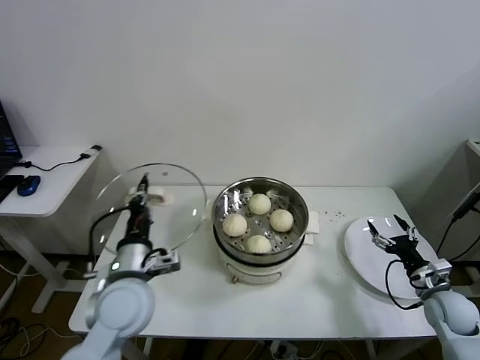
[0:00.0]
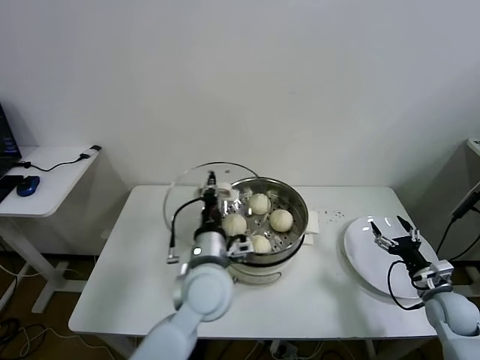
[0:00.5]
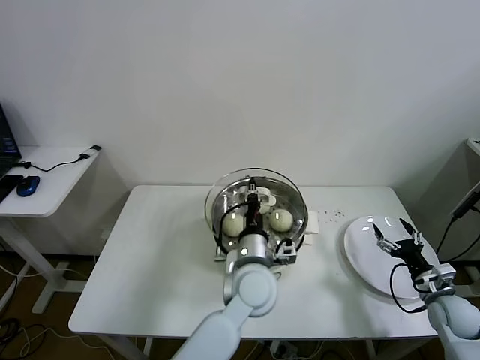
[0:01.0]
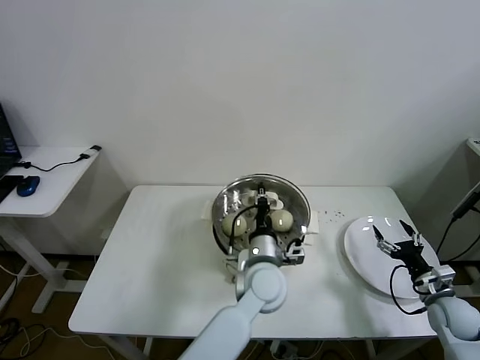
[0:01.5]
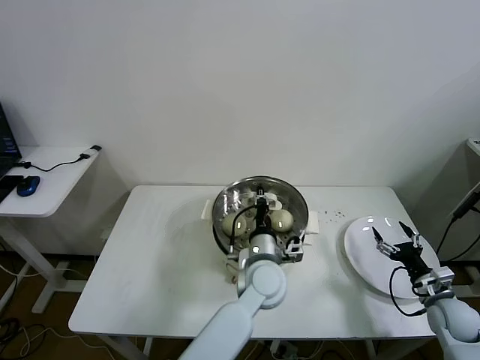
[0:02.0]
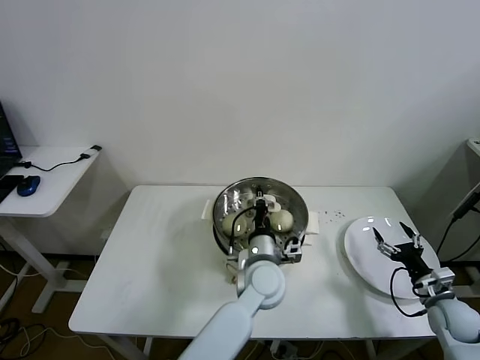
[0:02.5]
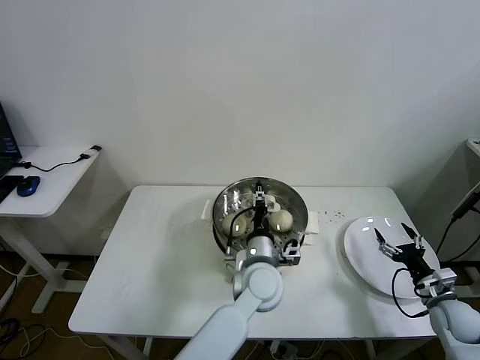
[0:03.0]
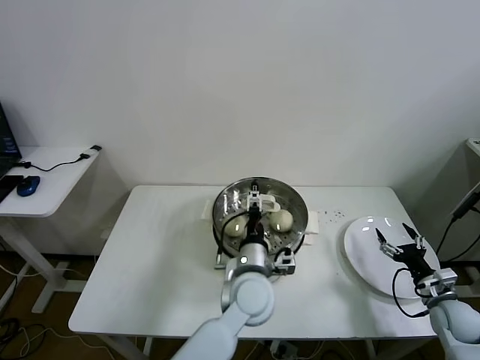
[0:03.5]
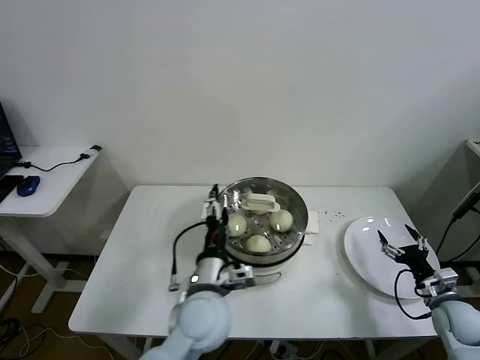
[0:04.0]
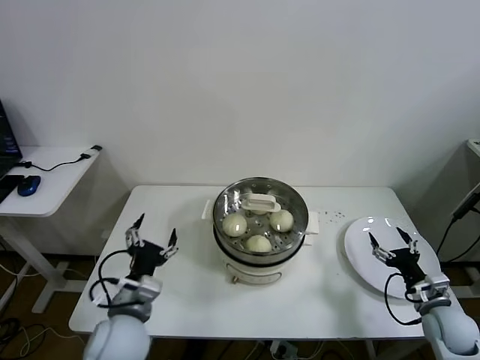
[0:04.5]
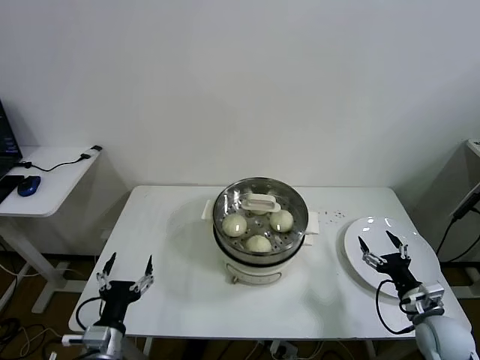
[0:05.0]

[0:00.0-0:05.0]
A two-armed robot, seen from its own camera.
Task of the whole recording: take steamed baozi put them in steamer.
Step, 0:00.0 to 0:03.0: Place the pot lid on the steamer with left gripper.
0:00.0 to 0:02.5: The left gripper moves to the right, approximately 25 cm.
0:02.5 to 0:05.0: The right gripper is displaced to the left by approximately 5 cm. The left gripper goes roughly 35 cm to the left and backward, and opens up.

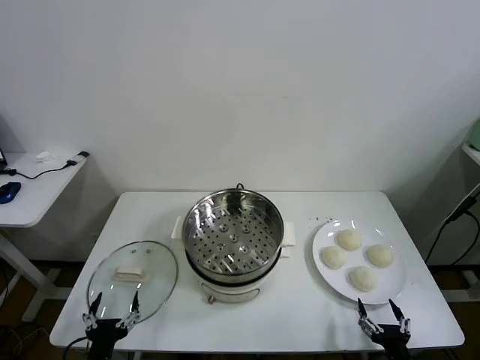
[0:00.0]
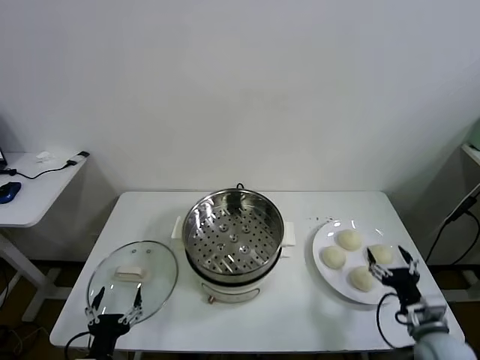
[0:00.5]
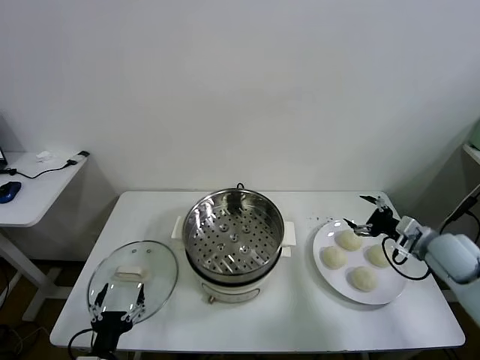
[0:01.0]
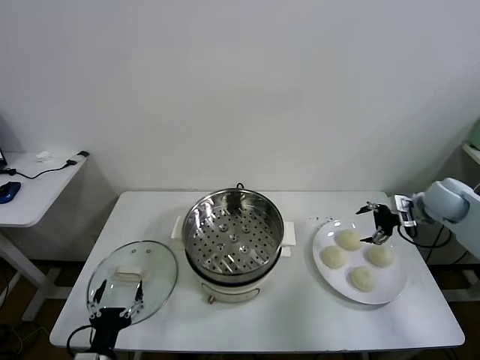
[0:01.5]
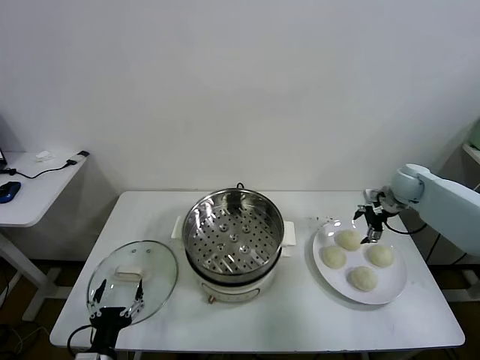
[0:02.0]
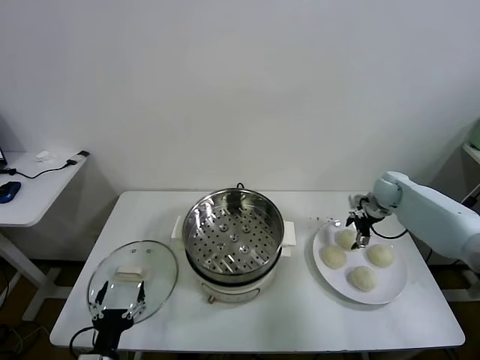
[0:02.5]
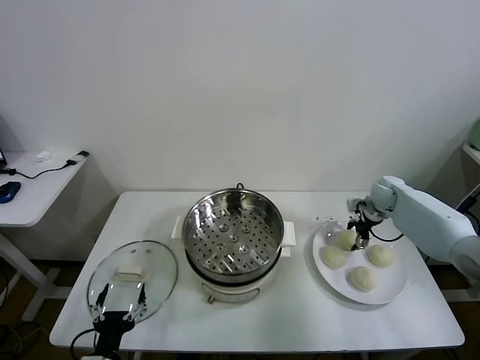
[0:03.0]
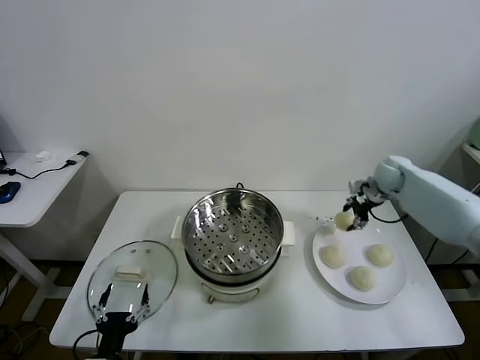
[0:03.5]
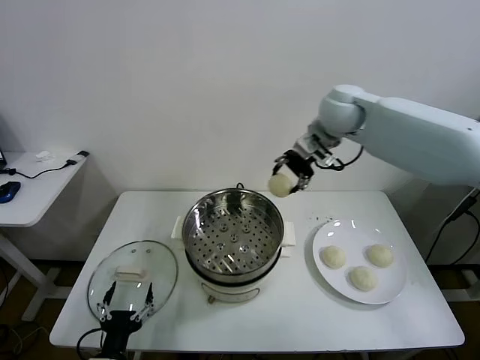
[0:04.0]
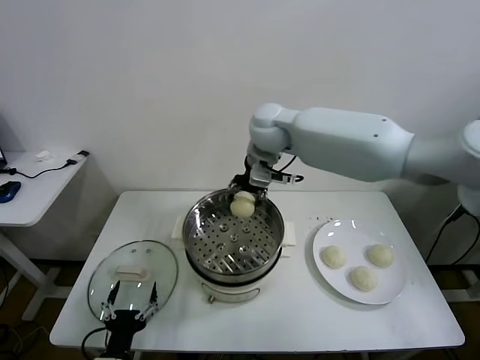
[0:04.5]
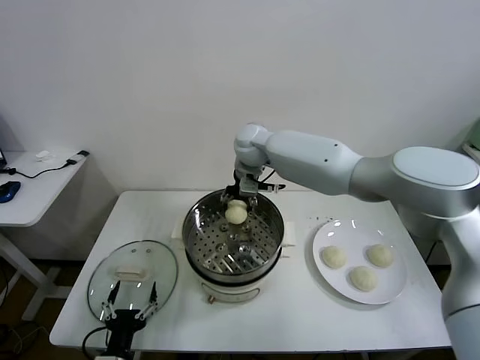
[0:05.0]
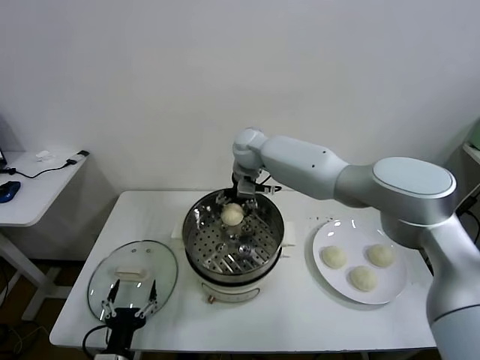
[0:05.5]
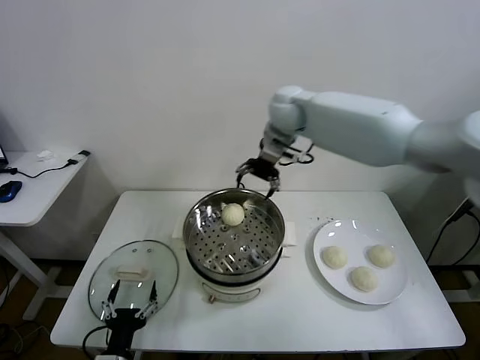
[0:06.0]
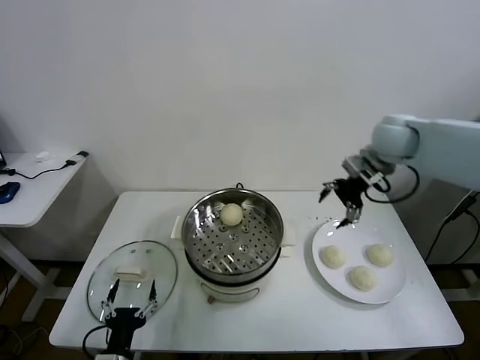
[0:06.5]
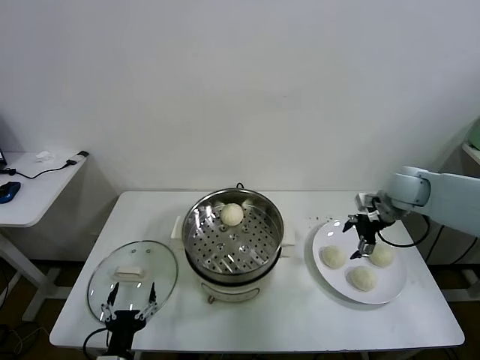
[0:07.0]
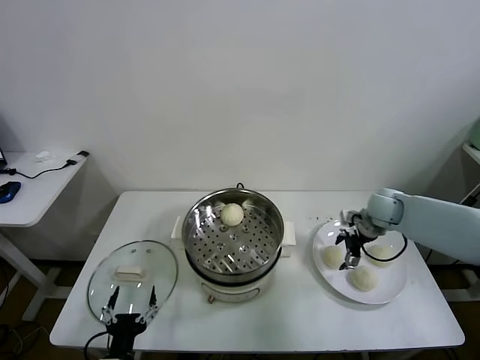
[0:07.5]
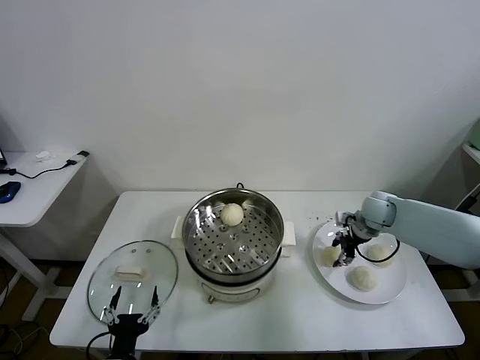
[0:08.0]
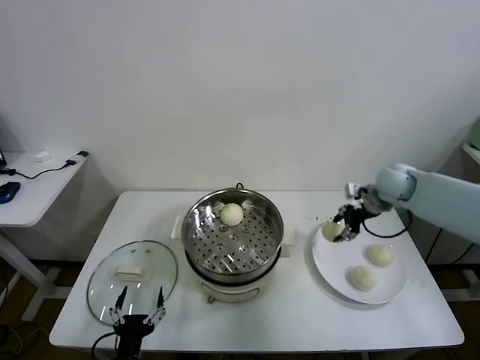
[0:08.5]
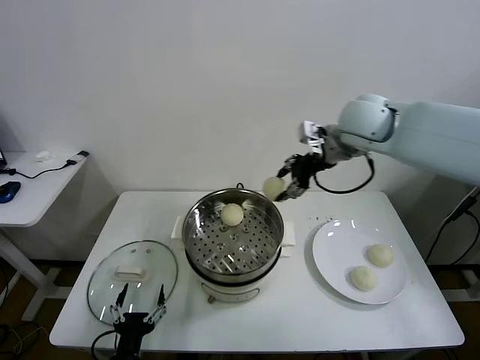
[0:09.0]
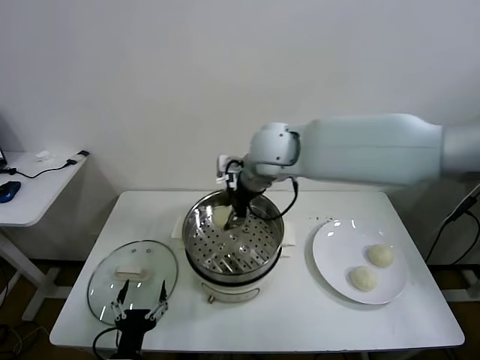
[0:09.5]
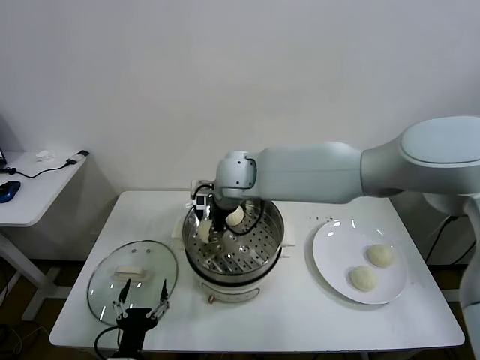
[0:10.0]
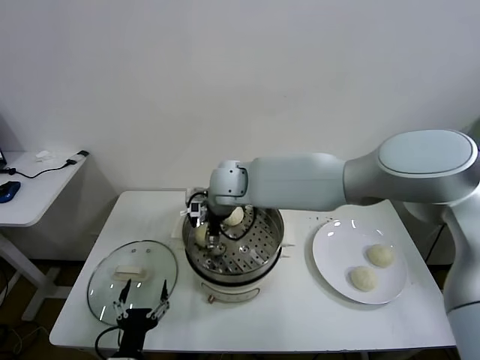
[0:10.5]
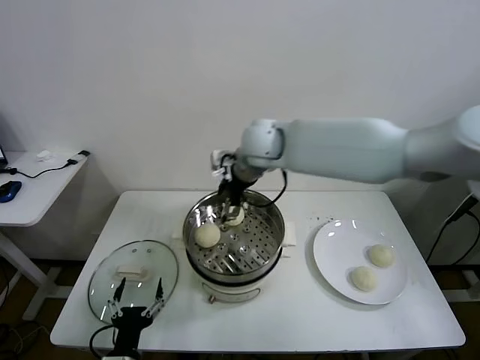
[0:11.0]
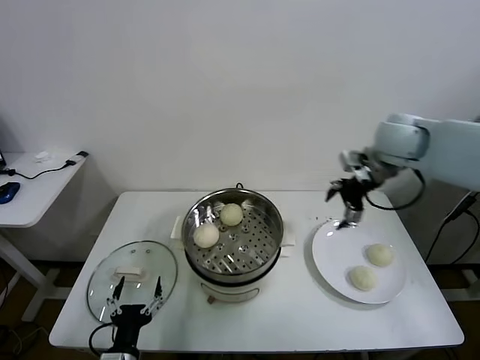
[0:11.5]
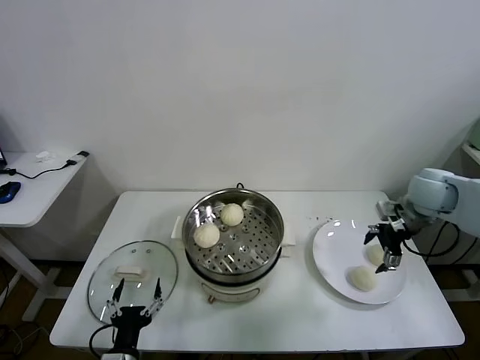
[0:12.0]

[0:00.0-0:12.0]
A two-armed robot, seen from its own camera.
Task of the whole recording: take steamed baozi put them in steamer.
Step, 0:00.0 to 0:03.0: Grasp the baozi in the plate with right gripper.
Step, 0:03.5 to 0:05.5: Place the baozi on the steamer with right gripper.
Step, 0:06.0 to 0:08.0: Grasp the baozi in the plate with right gripper.
Step, 0:08.5 to 0:10.5: Place the baozi on the steamer with right gripper.
0:02.0 to 0:04.0: The right gripper moves to the left and upward, roughly 35 cm, and closes.
0:04.0 to 0:06.0: The right gripper reaches approximately 15 cm to the left, then returns, and opens.
0:06.0 to 0:08.0: The right gripper goes approximately 35 cm downward and to the right, and closes up.
0:08.0 to 0:10.0: The right gripper travels to the left by about 40 cm.
0:10.0 to 0:12.0: The right gripper travels to the right by some 40 cm, and opens its fingers.

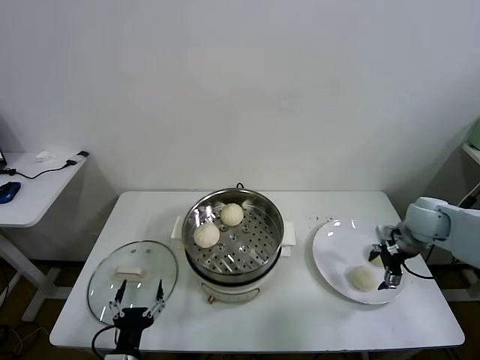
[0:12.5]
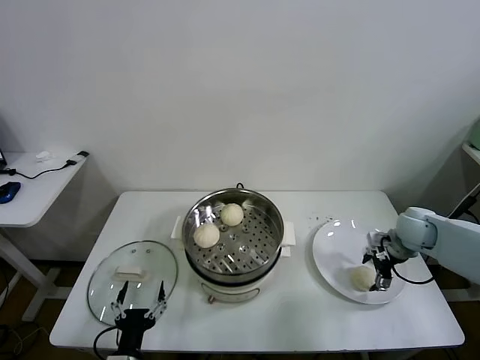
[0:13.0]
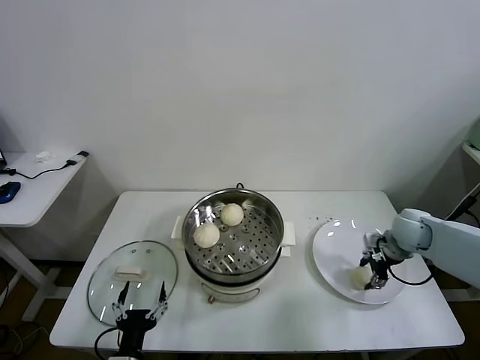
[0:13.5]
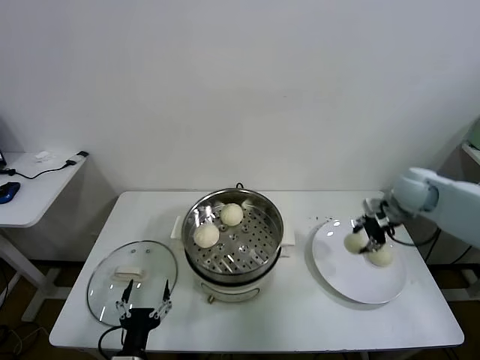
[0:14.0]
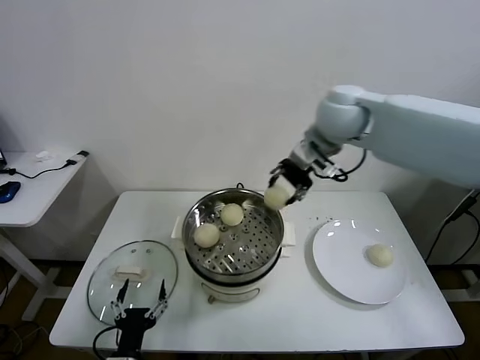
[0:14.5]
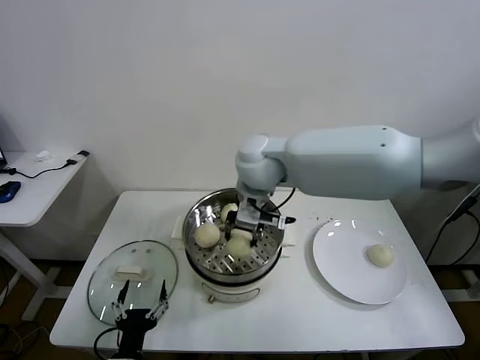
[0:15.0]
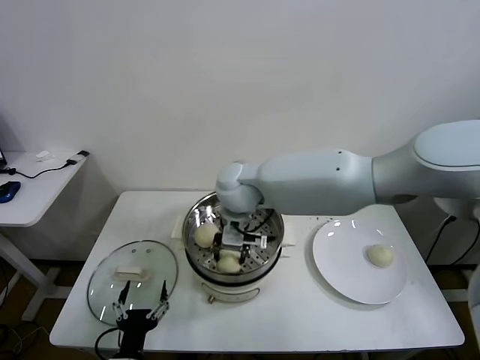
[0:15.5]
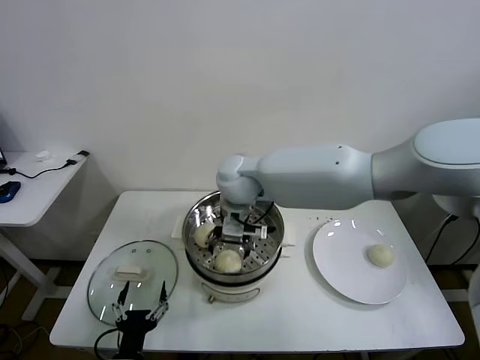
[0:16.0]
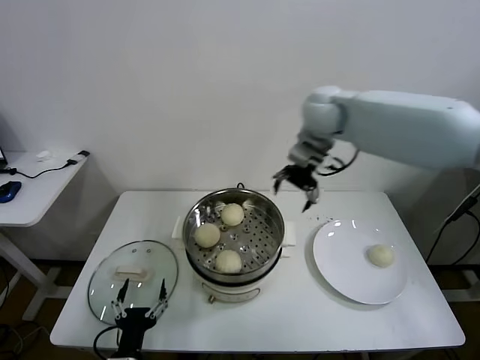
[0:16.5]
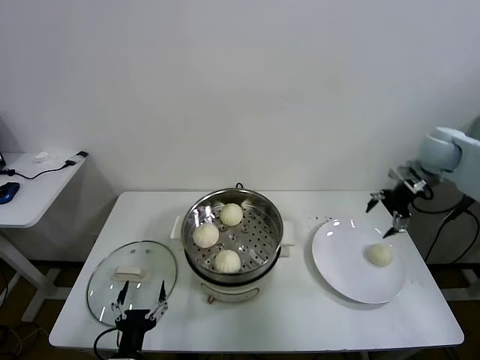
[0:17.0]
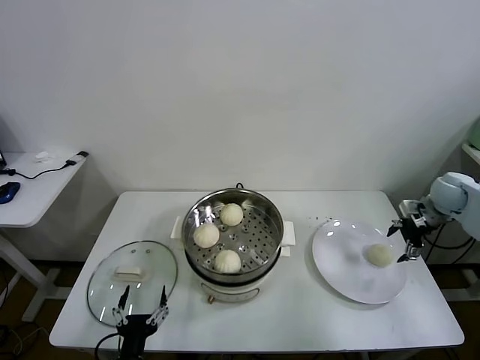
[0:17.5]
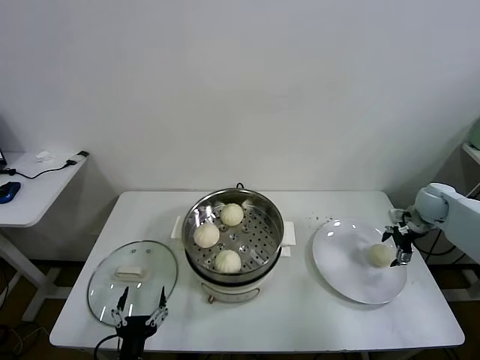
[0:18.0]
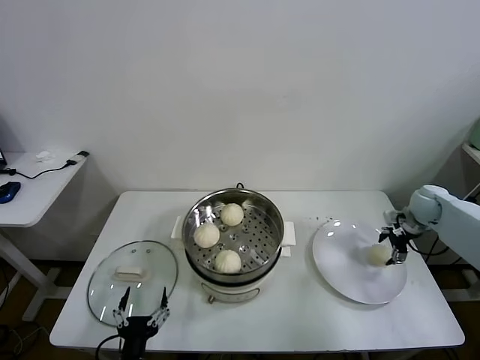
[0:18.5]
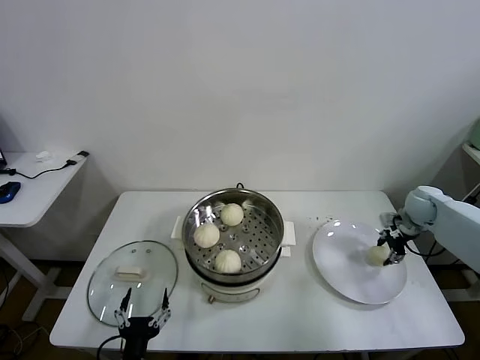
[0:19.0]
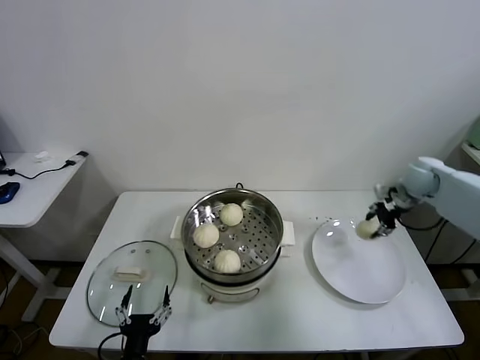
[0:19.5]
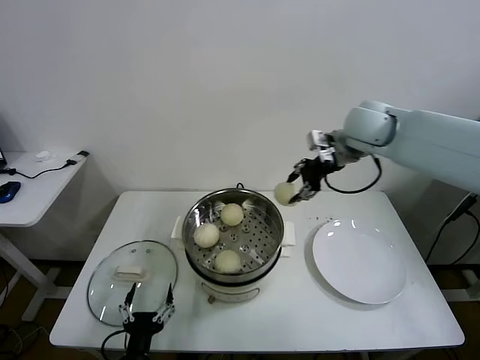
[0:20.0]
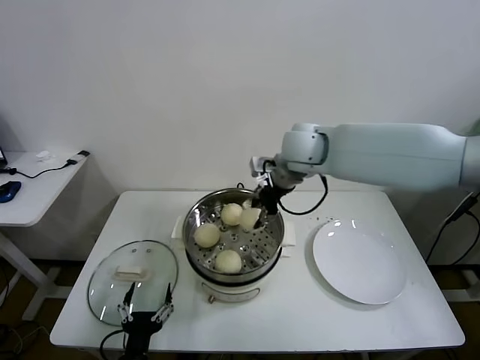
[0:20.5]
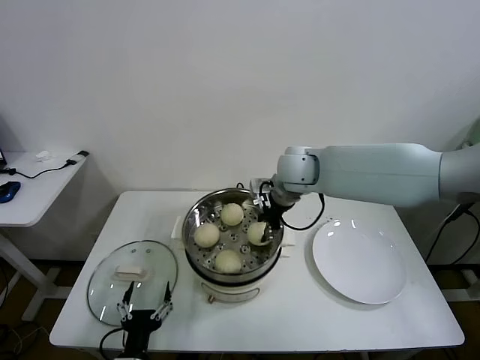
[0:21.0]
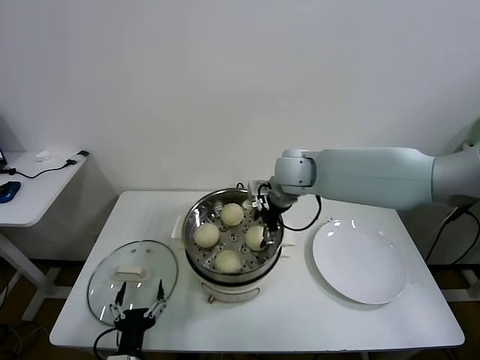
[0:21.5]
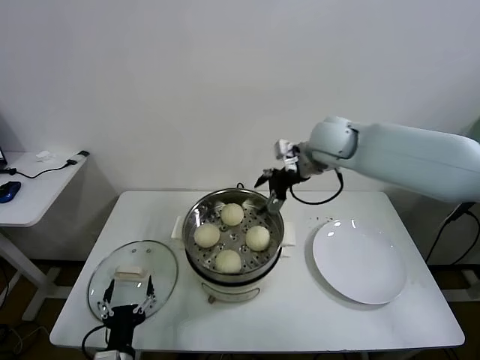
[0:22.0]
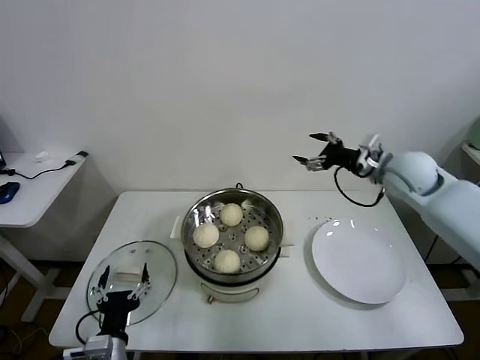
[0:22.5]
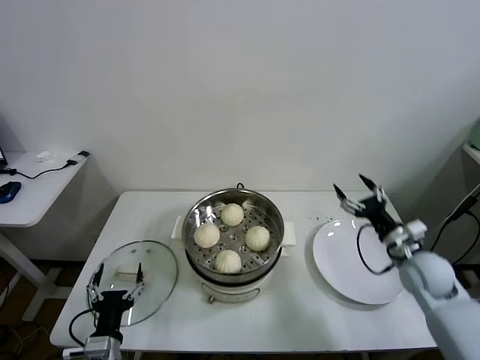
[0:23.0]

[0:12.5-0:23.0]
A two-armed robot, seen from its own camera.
Task of the whole recording: take steamed baozi put them in steamer.
Step, 0:14.0 to 0:15.5: Place the baozi on the steamer with right gripper.
Step, 0:16.0 to 0:18.5: Grasp the baozi in the plate with right gripper.
Step, 0:19.5 to 0:21.5: Place the baozi on the steamer with right gripper.
0:12.5 to 0:14.5: The right gripper heads to the left and upward, covering about 35 cm, and closes up.
0:14.5 to 0:16.5: The right gripper heads forward, covering some 5 cm, reaches some 15 cm to the left, then returns, and opens its fingers.
0:16.5 to 0:19.0: The right gripper shifts approximately 40 cm to the right and downward, and closes up.
0:19.0 to 0:21.0: The right gripper shifts roughly 40 cm to the left and upward.
0:21.0 to 0:23.0: The right gripper is displaced to the right, downward and backward by about 35 cm, and opens its fingers; the left gripper moves roughly 5 cm.
